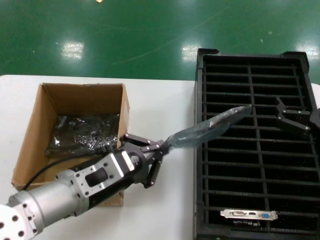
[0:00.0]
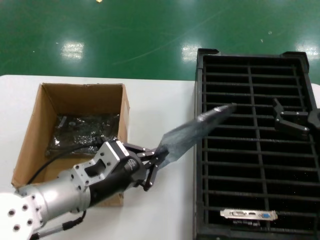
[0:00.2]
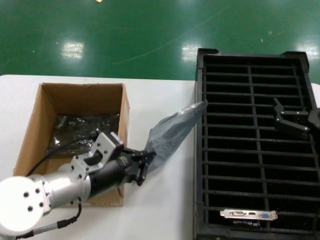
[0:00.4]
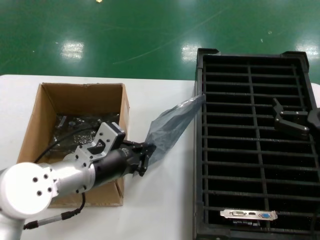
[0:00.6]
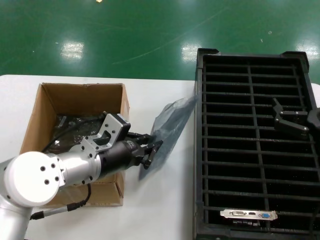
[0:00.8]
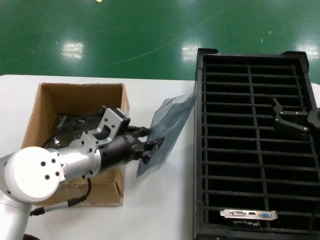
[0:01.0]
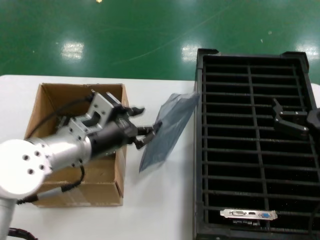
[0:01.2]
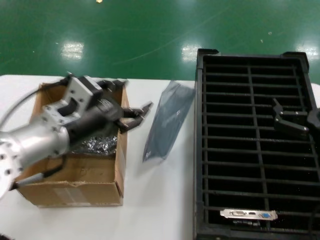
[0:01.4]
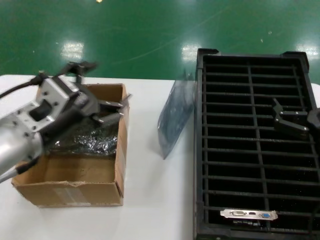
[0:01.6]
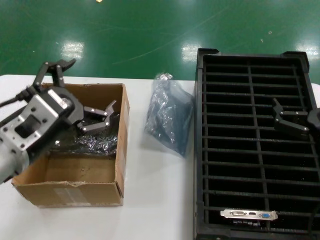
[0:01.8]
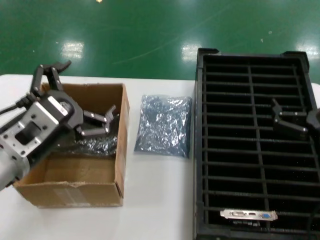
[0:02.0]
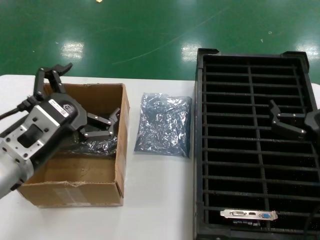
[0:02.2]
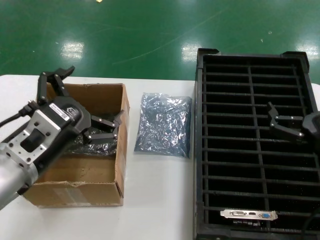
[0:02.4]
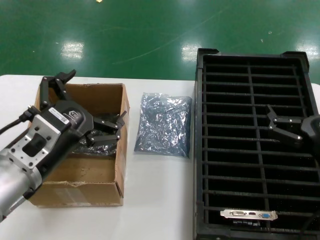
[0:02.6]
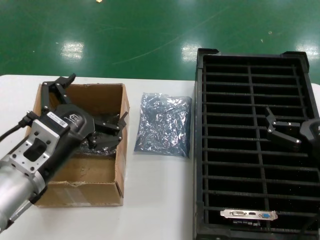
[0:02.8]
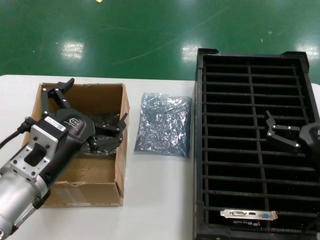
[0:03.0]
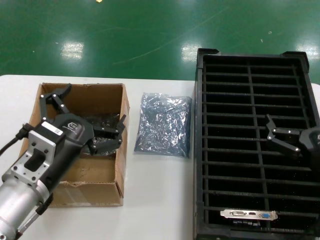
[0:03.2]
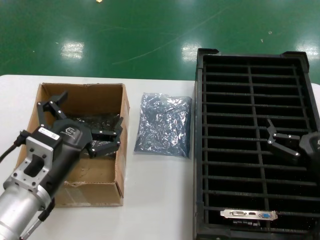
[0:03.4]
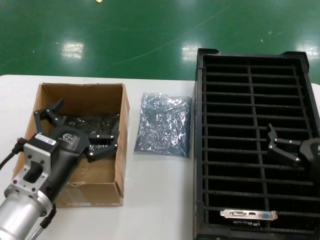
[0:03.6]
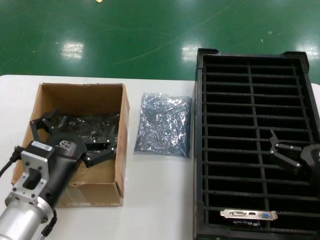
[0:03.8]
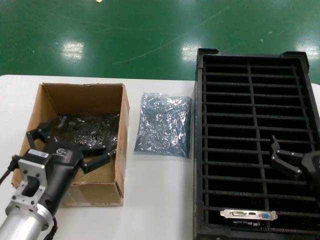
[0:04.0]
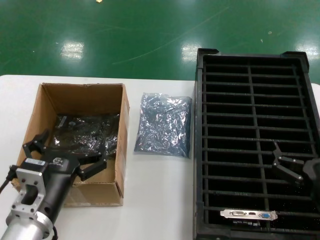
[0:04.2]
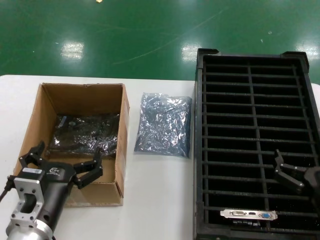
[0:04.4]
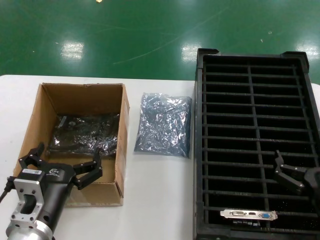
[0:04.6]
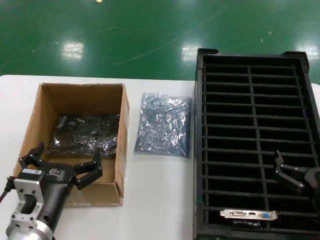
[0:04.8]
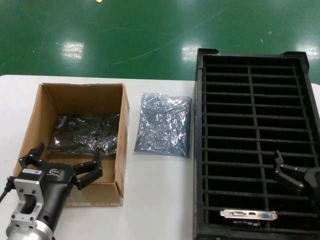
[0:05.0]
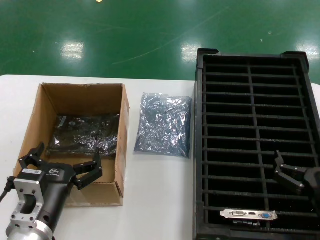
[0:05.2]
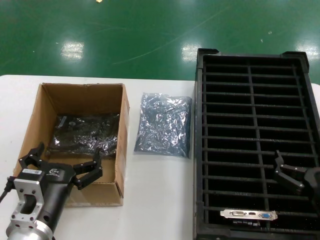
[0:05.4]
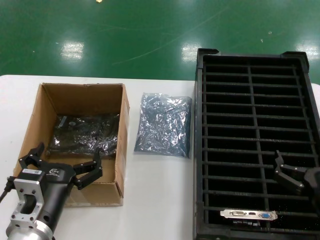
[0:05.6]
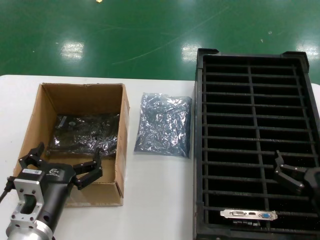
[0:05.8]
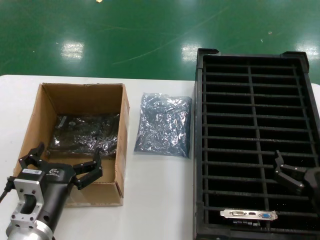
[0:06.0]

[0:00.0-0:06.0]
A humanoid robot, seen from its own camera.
Task of the whole recording: take out graphics card from box remove packaging put into black container.
Step, 0:00.0 to 0:03.6: Place the down the bag.
0:00.0 to 0:01.6: The left hand heads upward, covering about 10 cm, and reaches some 10 cm forward, then returns.
0:01.6 to 0:03.0: The left hand travels downward by approximately 5 cm.
0:03.0 to 0:04.4: Both hands travel together downward, about 10 cm.
0:04.4 to 0:06.0: Both hands stay about where they are.
